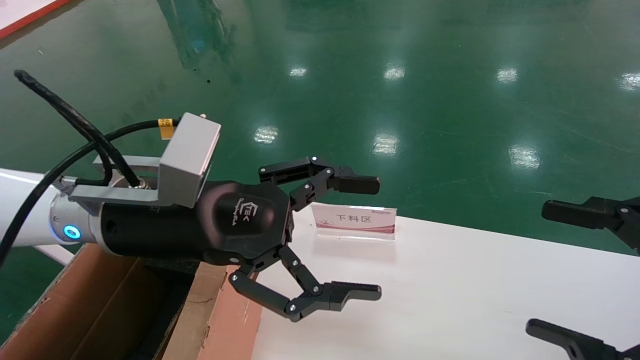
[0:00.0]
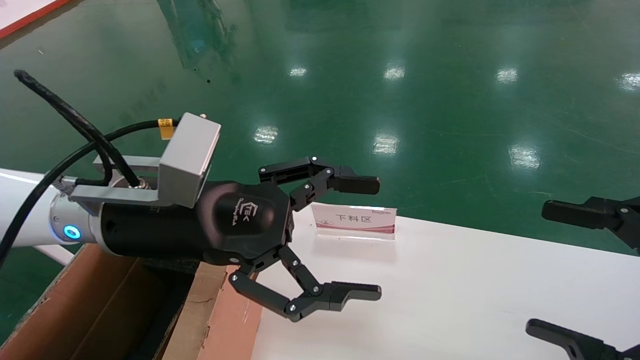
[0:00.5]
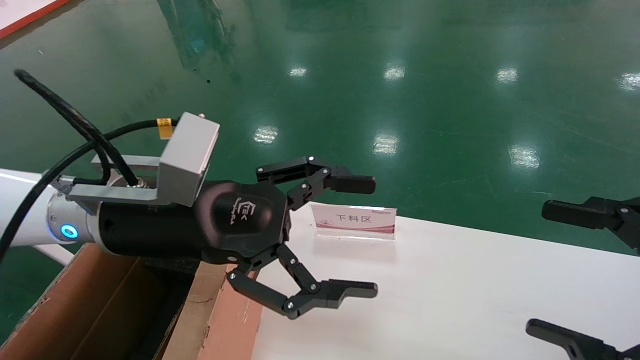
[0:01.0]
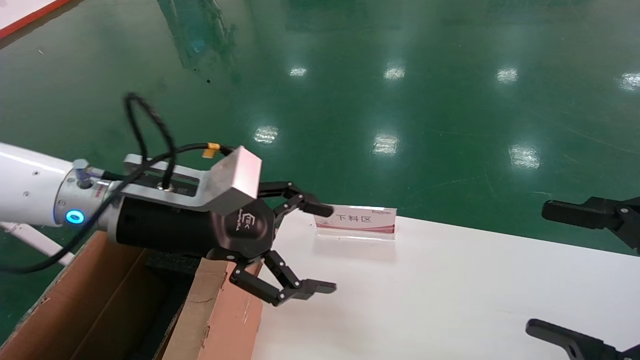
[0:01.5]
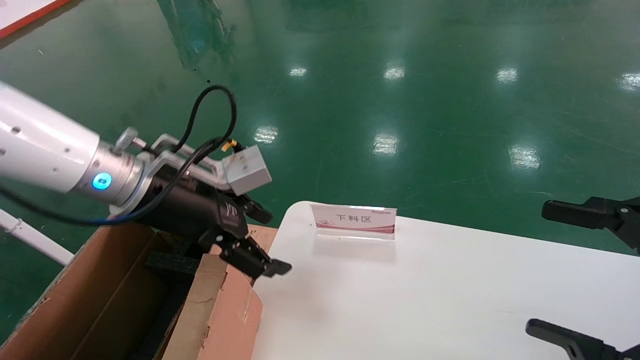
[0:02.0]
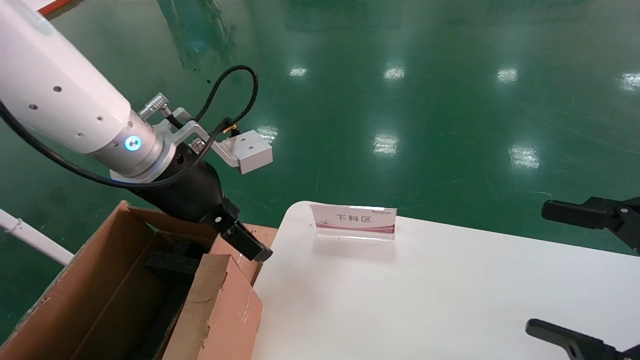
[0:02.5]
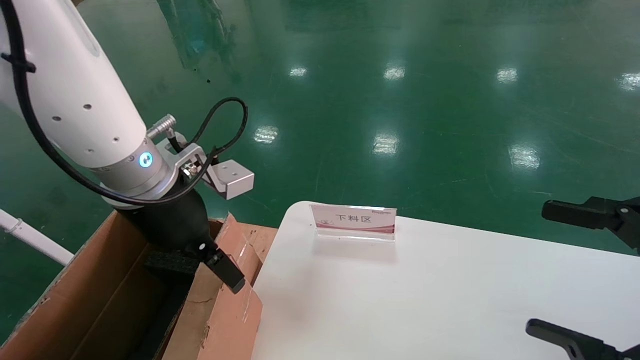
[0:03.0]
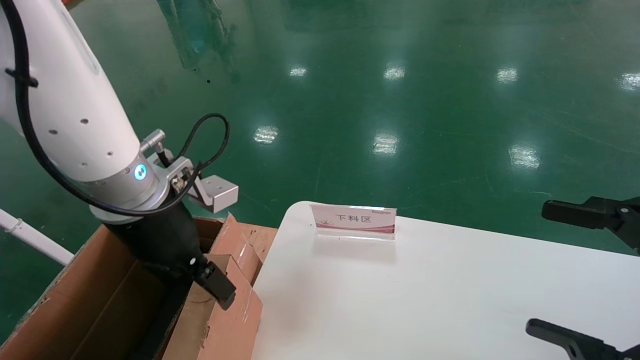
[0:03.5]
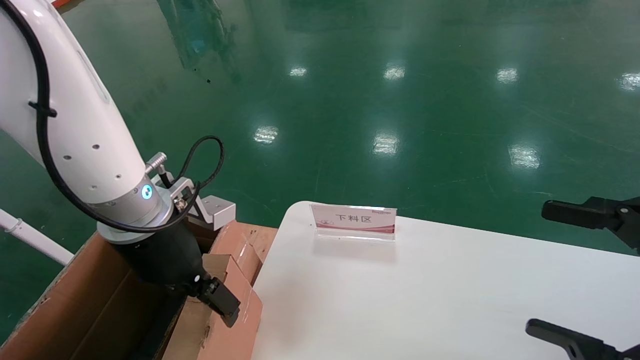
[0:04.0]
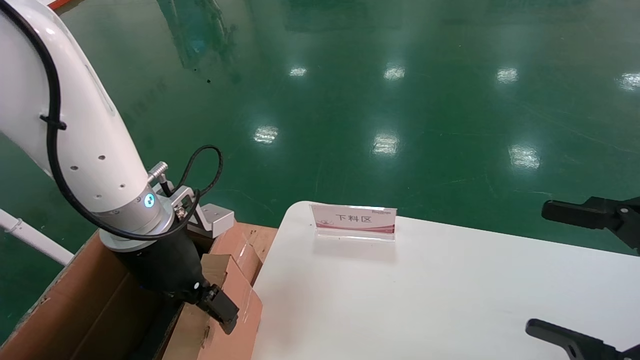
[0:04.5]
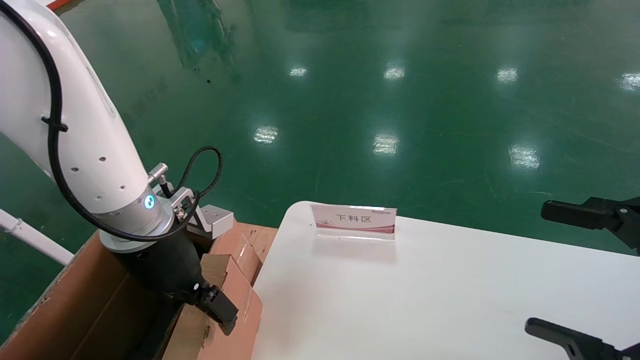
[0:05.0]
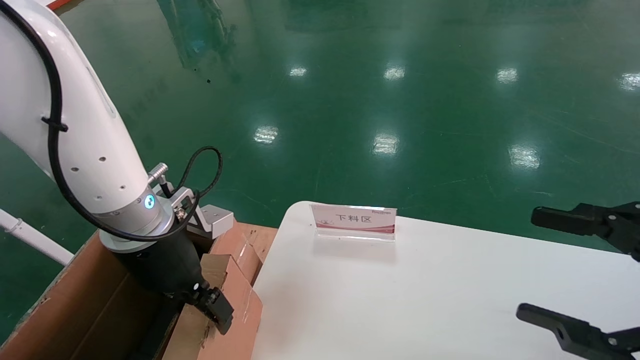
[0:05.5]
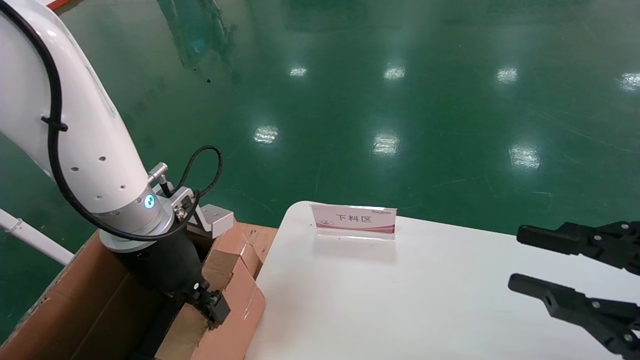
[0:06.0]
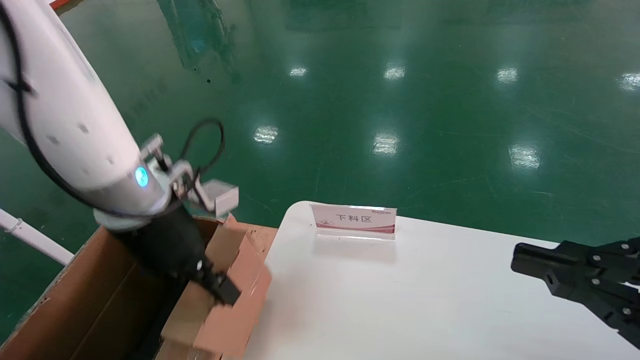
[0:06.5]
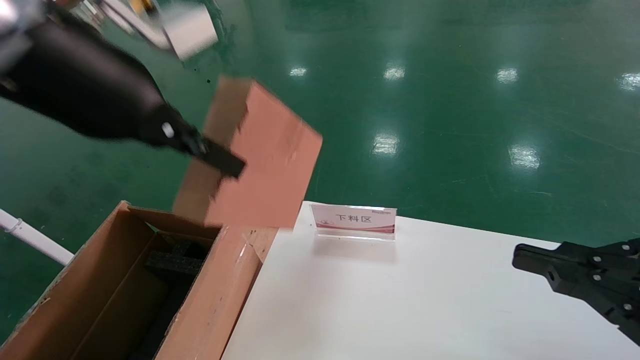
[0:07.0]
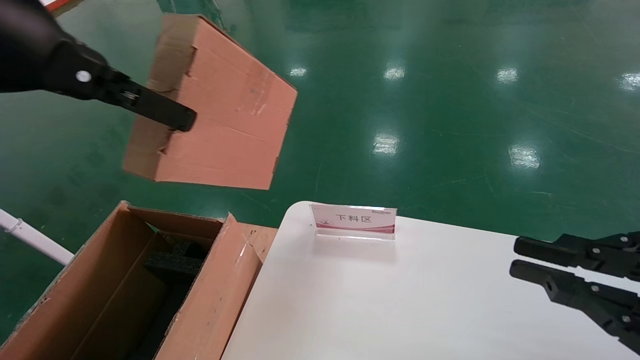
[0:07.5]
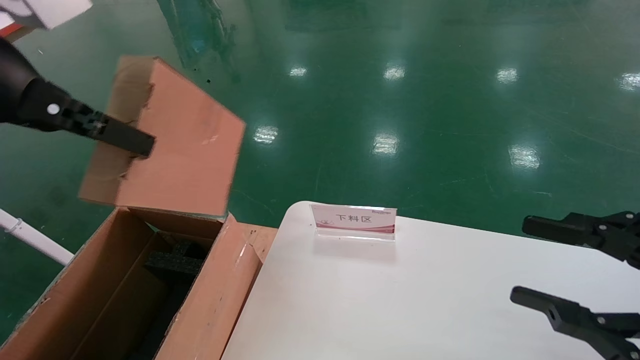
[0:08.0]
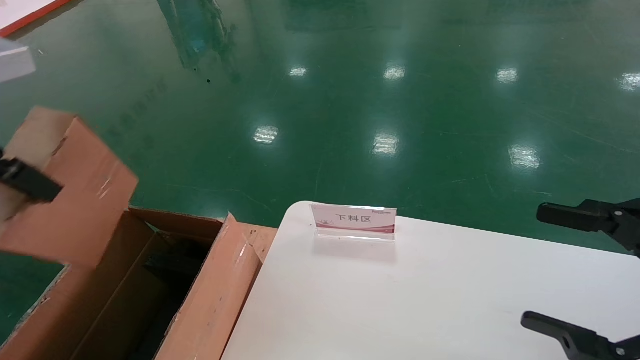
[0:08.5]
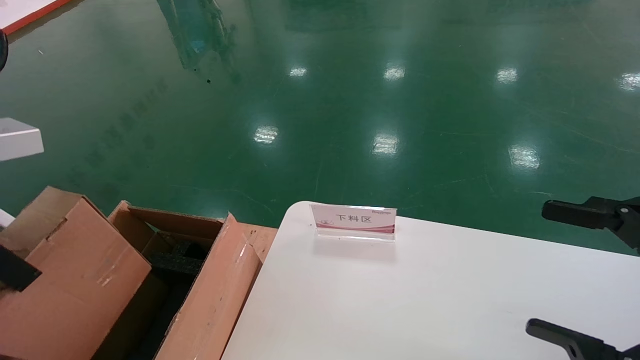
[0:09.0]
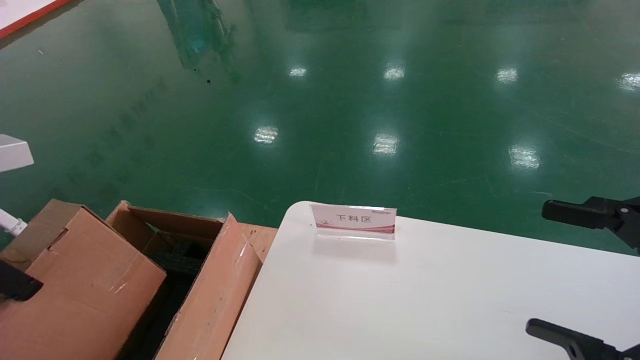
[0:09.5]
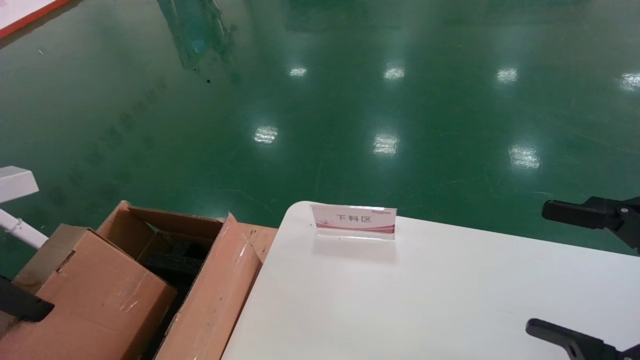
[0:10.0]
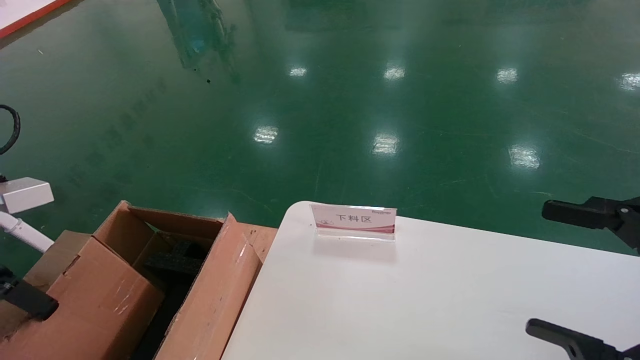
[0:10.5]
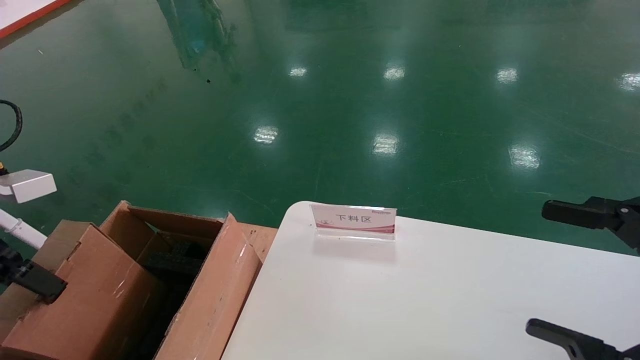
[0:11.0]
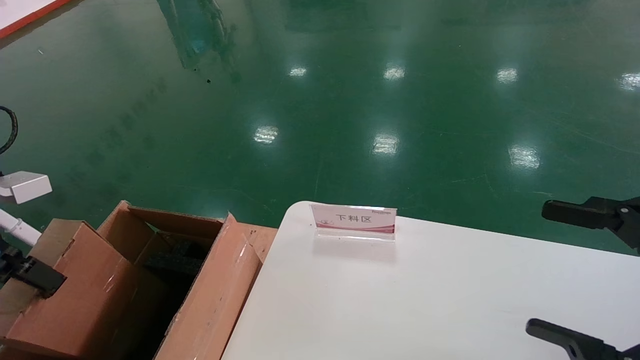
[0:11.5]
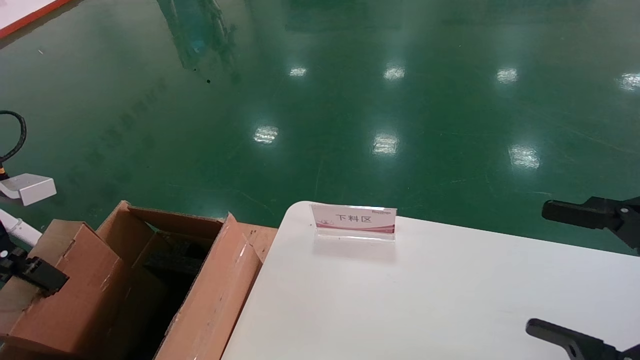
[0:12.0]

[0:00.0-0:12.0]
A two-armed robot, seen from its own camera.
Task of the whole recording: pick up the small cardboard box and load it into the large cardboard box.
Step, 0:01.5 to 0:05.5: Pick up the mouse and power cord box.
0:00.0 to 0:02.0: The left gripper shifts by about 5 cm.
0:04.0 to 0:06.0: The left gripper closes up. The right gripper closes up.
0:06.0 to 0:08.0: The left gripper shifts some 25 cm upward and backward, and closes.
0:08.0 to 0:10.0: The right gripper opens up. Meanwhile the left gripper goes roughly 15 cm downward and to the left.
0:10.0 to 0:12.0: The left gripper travels forward by some 5 cm.

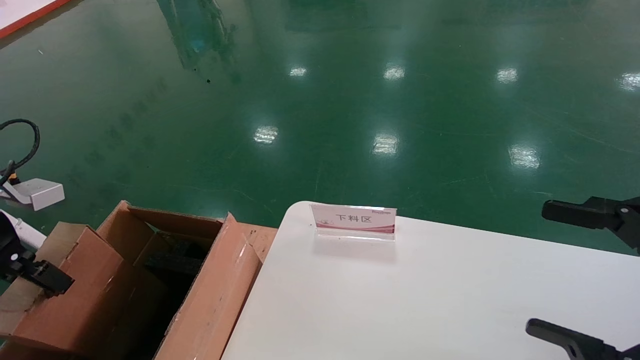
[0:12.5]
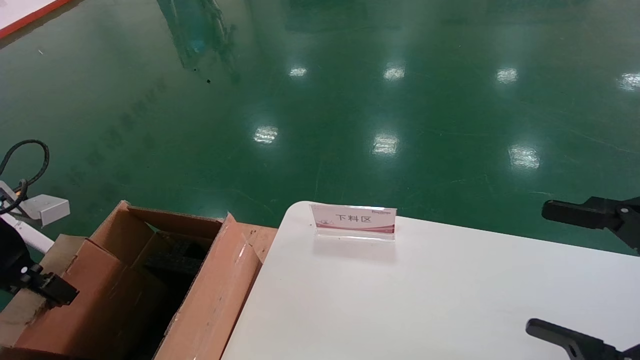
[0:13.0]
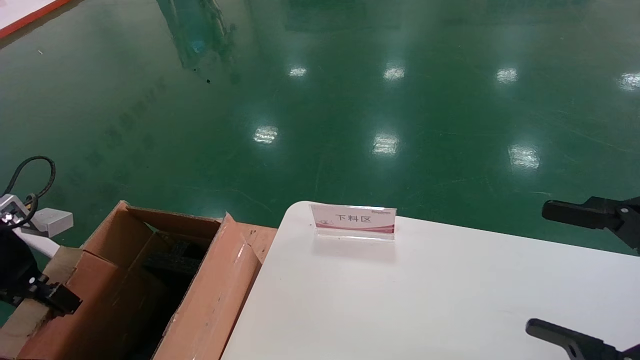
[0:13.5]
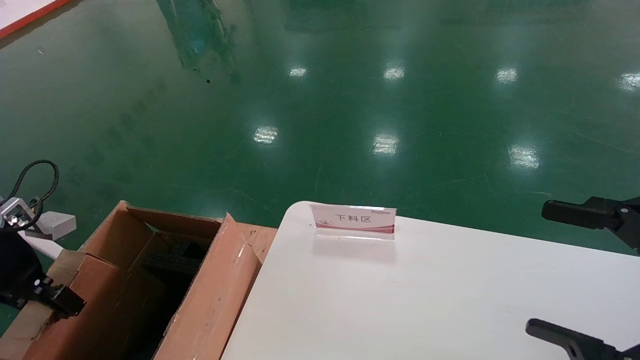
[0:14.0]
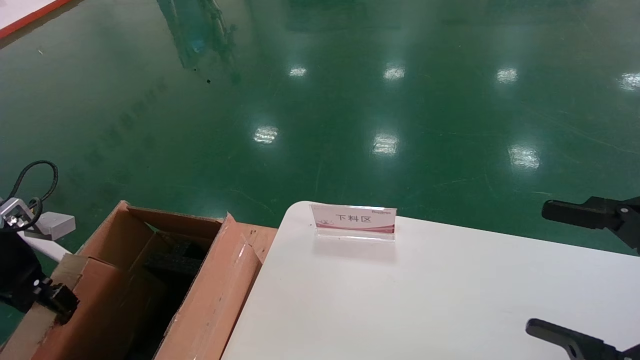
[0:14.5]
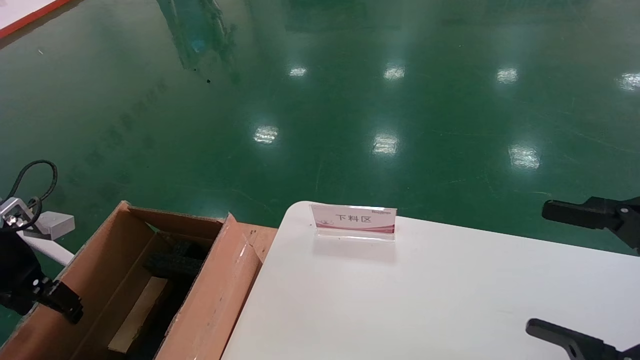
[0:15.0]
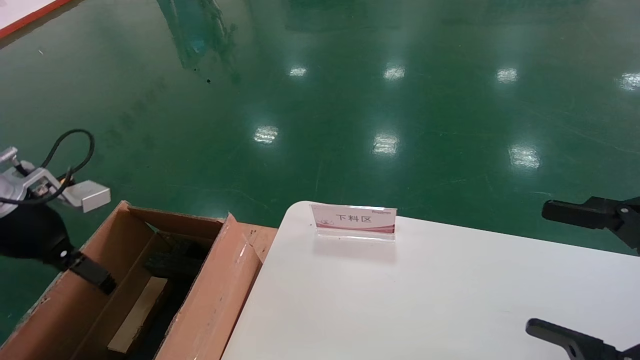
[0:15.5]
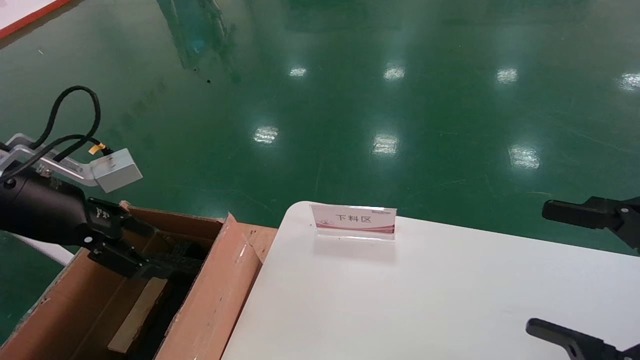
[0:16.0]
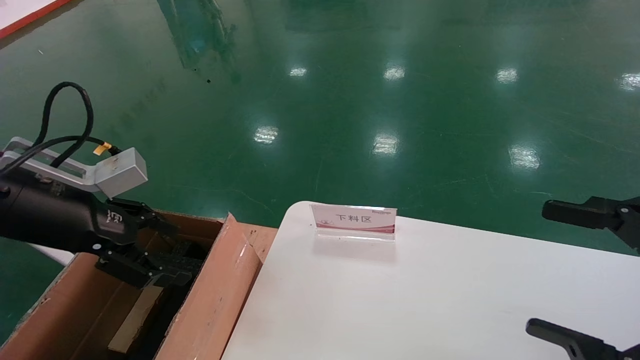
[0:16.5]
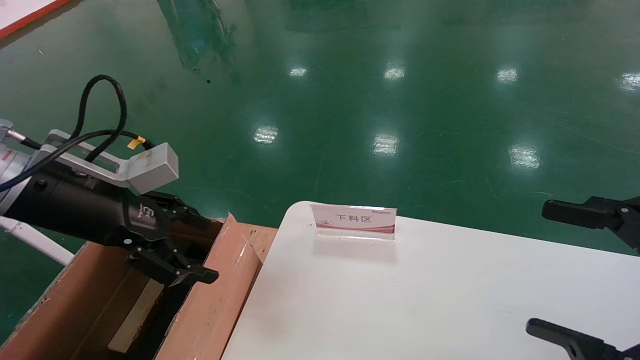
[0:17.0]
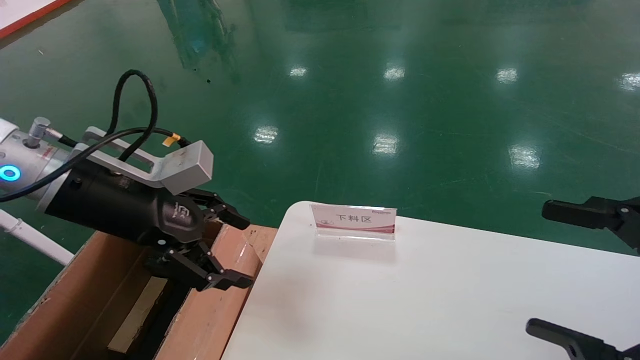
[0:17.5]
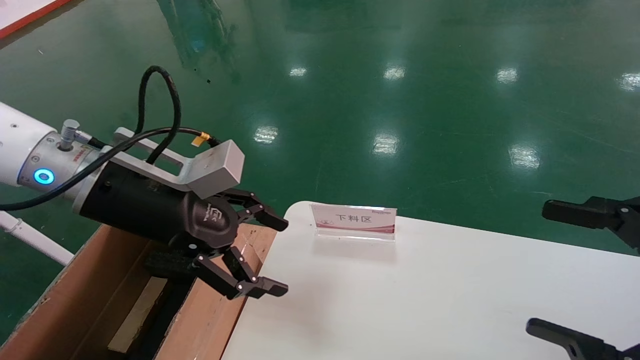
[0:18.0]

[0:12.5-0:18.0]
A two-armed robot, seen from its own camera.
Task of the whole recording: pick up the small cardboard box and load it into the large cardboard box.
Step, 0:12.5 to 0:15.0: Place the mouse and power cord box into the case.
0:12.5 to 0:14.5: The left gripper moves downward, approximately 5 cm.
0:14.5 to 0:16.0: The left gripper heads to the right and upward, covering roughly 10 cm, and opens.
0:16.0 to 0:18.0: The left gripper heads to the right, covering roughly 15 cm.
